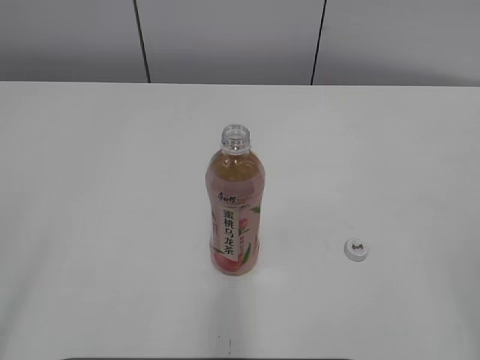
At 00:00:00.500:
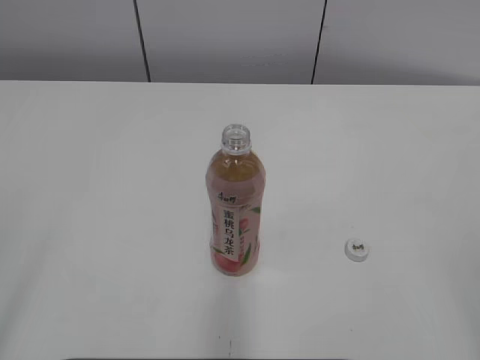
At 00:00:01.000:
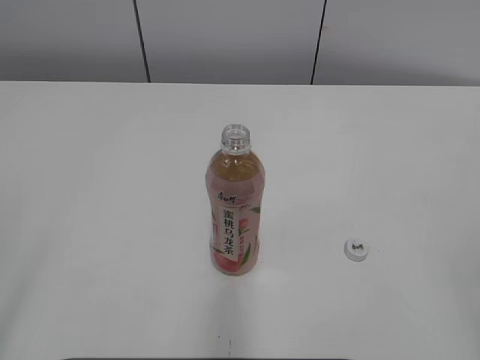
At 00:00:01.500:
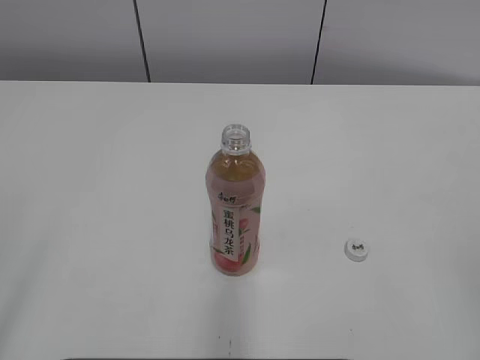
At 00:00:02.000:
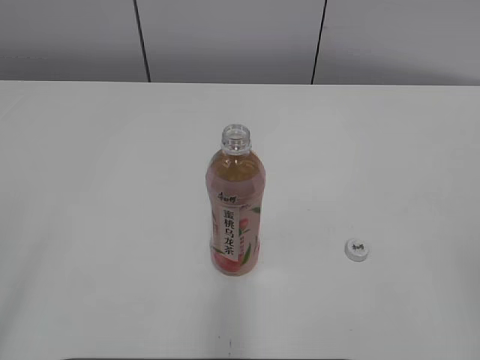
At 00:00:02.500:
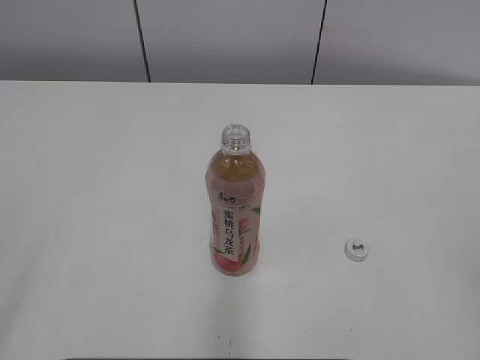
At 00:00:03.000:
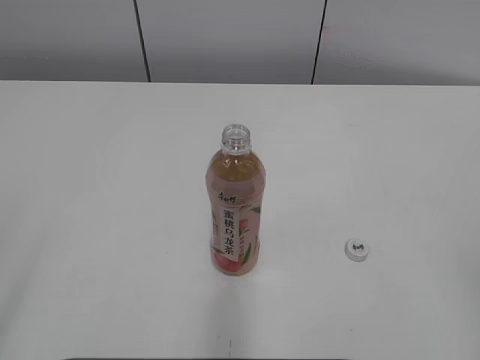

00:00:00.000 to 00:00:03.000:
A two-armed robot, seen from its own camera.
00:00:01.500 to 00:00:03.000: Neither gripper changes place.
